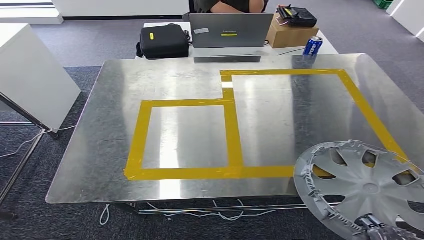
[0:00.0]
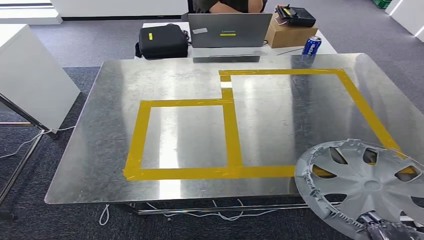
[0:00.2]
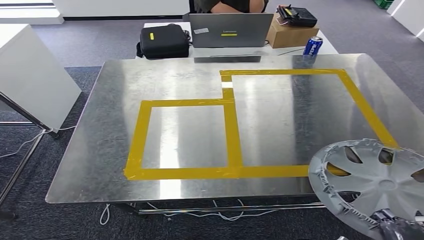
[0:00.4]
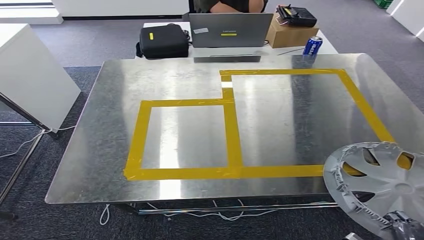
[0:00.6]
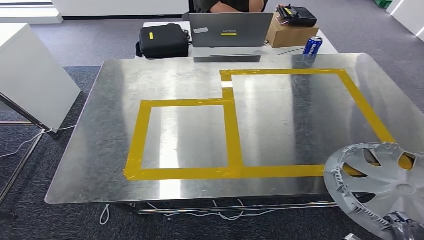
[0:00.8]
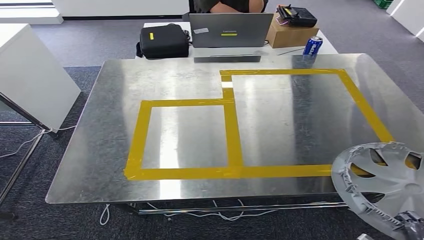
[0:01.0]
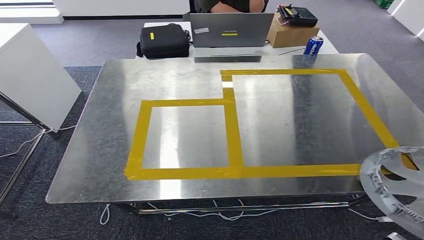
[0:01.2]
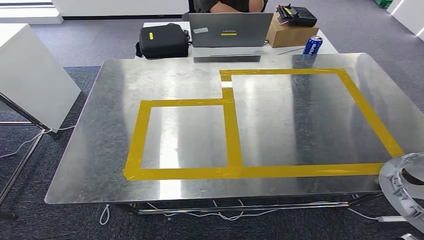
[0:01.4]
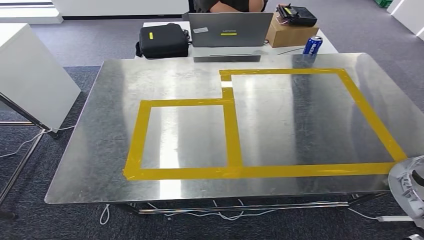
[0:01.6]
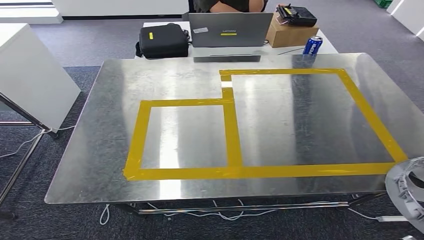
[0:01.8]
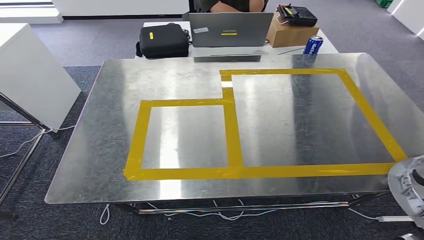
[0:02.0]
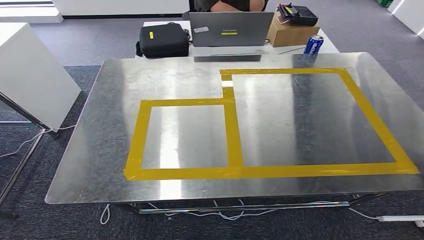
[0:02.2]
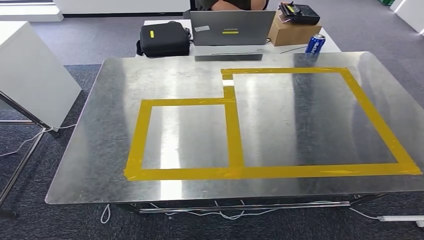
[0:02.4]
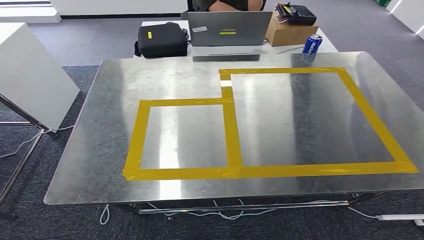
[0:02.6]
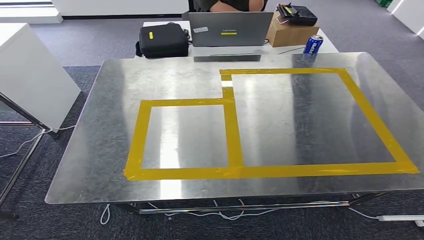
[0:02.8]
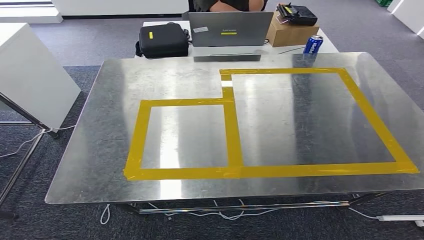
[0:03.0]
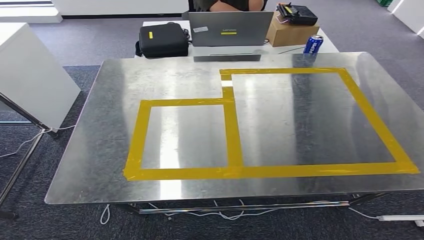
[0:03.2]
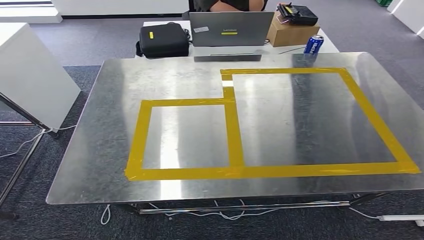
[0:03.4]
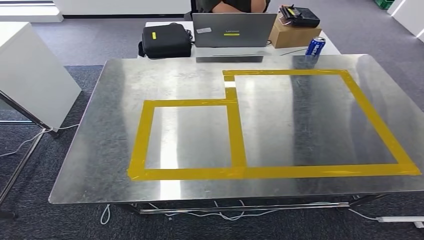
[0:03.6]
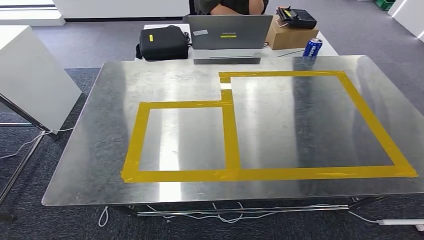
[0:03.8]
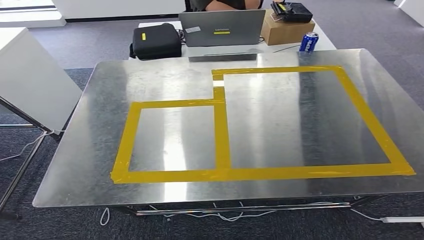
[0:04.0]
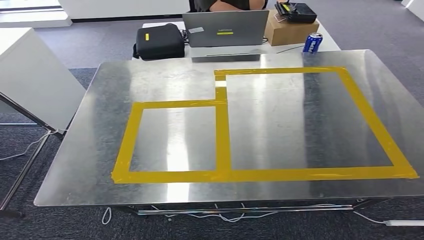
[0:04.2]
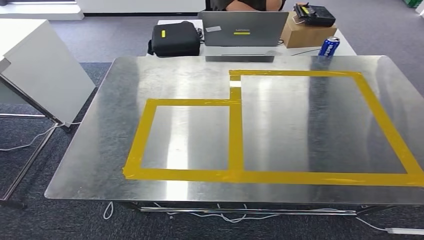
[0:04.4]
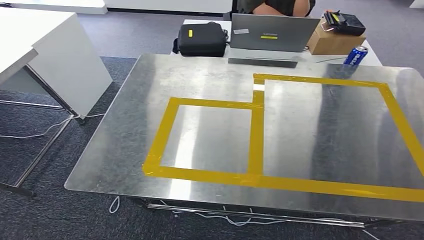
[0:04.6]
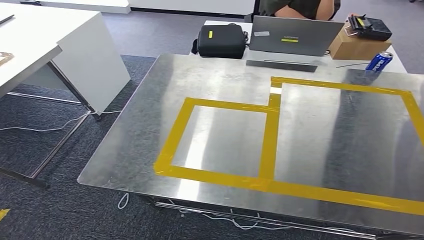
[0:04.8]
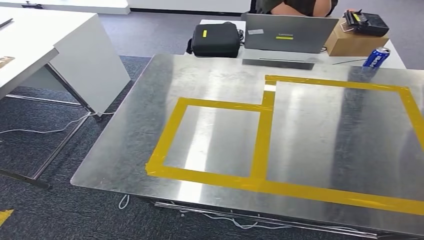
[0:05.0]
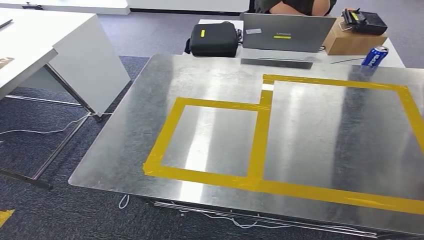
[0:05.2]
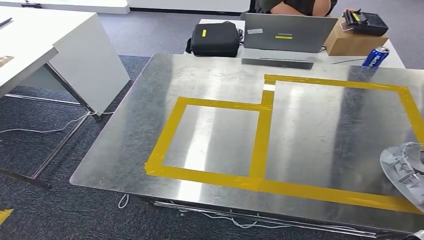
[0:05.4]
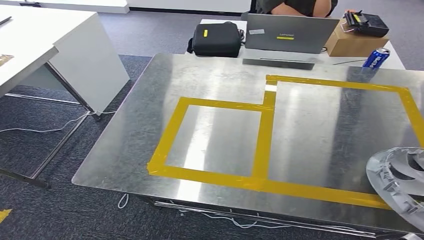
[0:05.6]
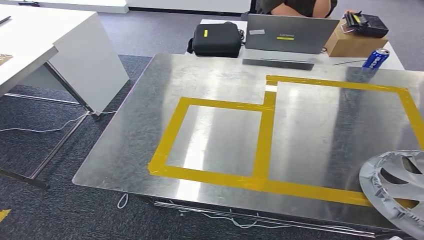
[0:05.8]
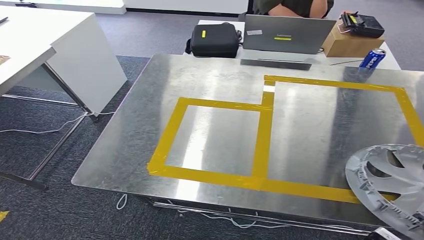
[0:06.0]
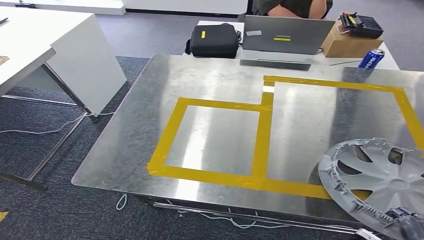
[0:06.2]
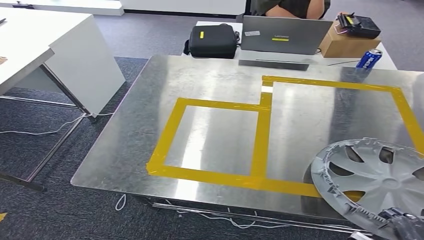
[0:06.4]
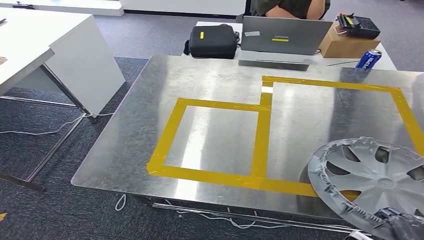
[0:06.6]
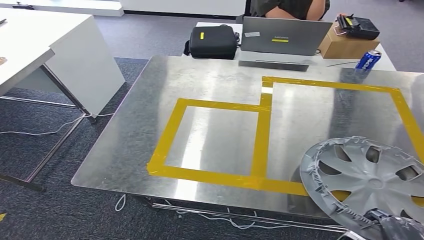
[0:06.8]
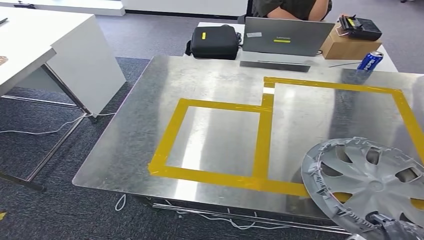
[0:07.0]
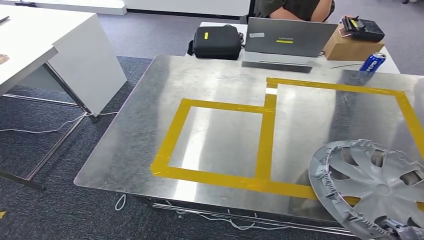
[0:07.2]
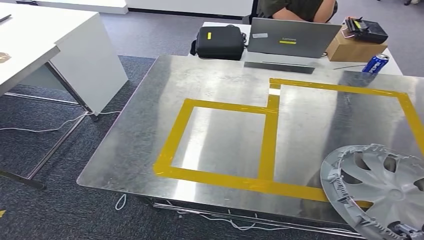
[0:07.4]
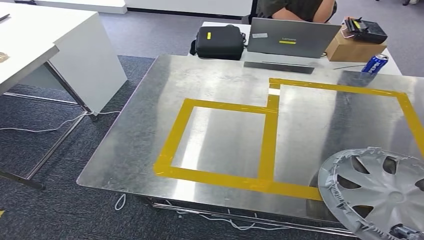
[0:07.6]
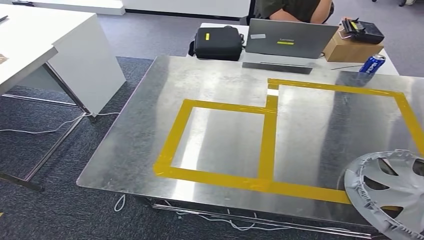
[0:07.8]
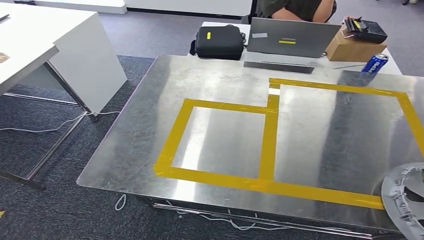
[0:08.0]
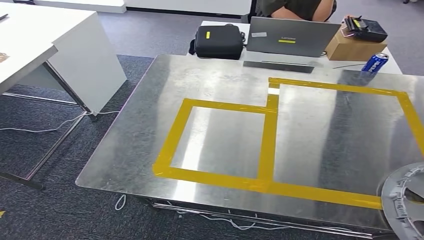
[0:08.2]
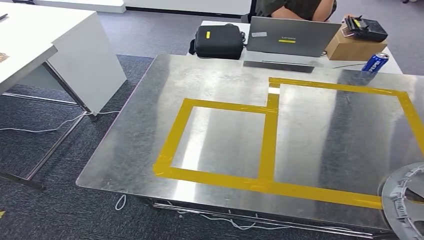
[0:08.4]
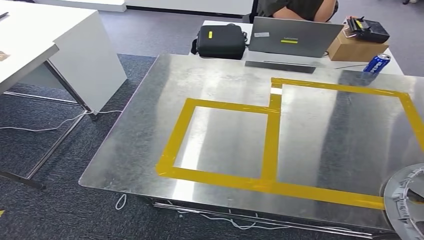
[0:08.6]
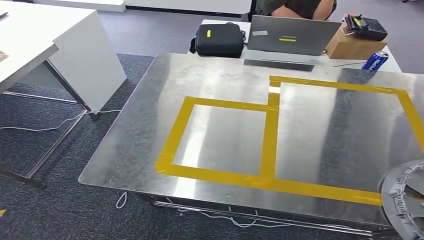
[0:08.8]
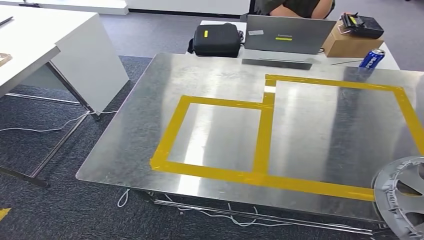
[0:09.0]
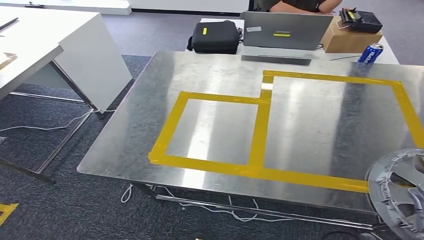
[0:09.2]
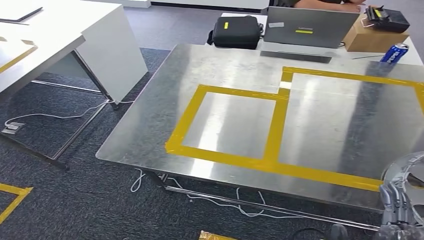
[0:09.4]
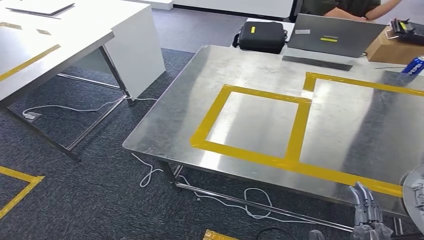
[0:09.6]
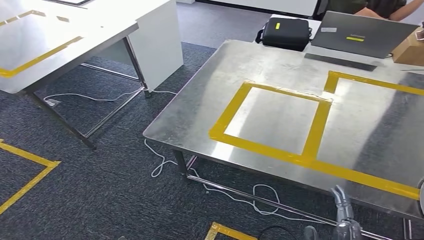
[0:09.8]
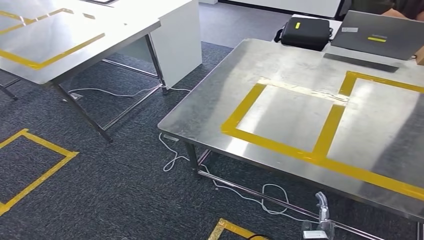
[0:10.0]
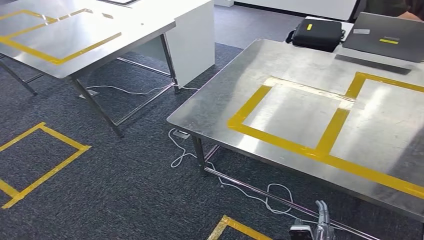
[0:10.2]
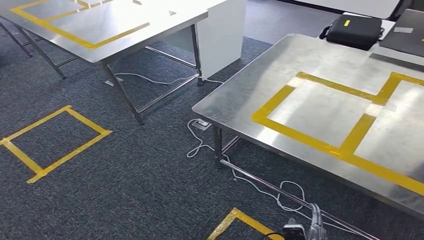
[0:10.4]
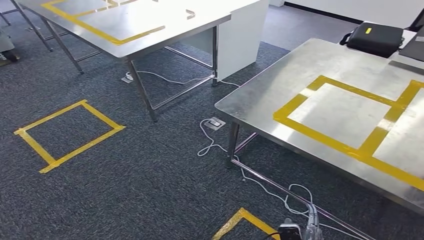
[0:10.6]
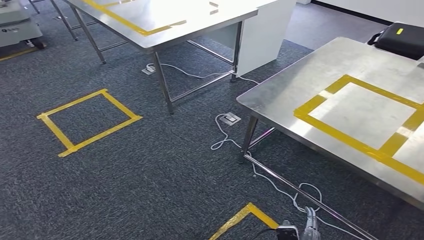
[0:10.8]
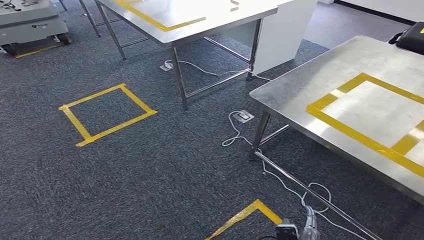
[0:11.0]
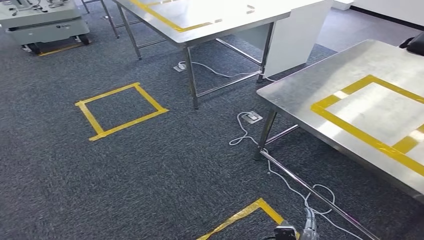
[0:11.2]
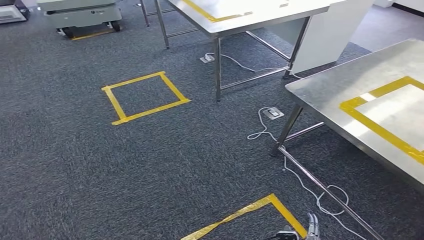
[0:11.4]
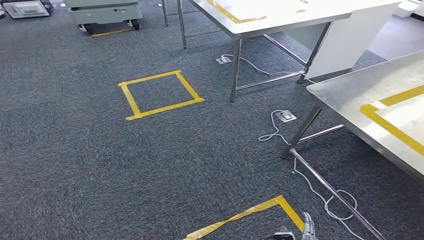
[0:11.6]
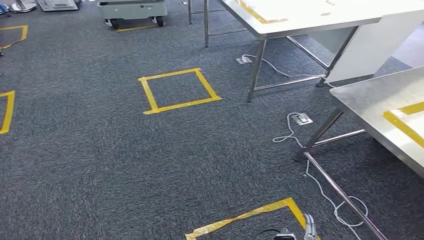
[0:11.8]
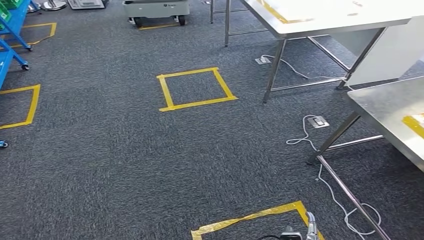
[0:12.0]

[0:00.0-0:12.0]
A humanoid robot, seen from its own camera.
Step, 0:00.0 to 0:10.8: Insert the small parts into the corresponding holes on the workbench.
0:00.0 to 0:01.6: The right hand goes about 10 cm to the right.
0:01.6 to 0:03.0: The right hand heads upward and backward, covering some 25 cm.
0:06.0 to 0:07.6: The hands move only a little.

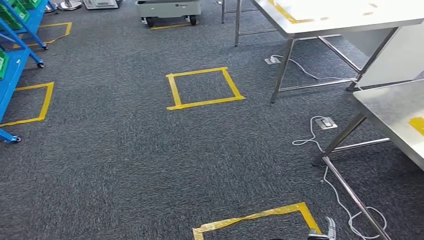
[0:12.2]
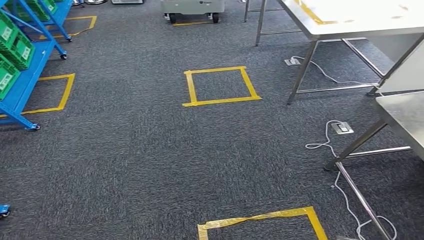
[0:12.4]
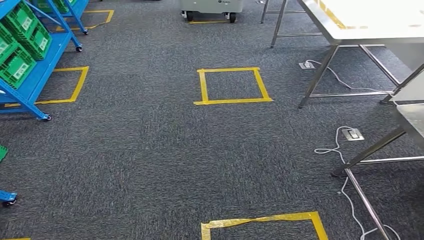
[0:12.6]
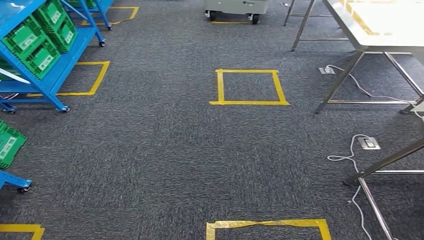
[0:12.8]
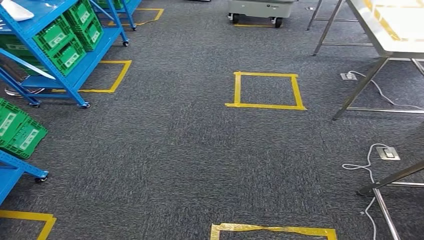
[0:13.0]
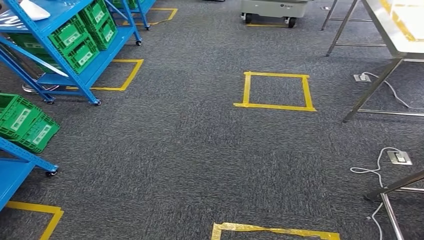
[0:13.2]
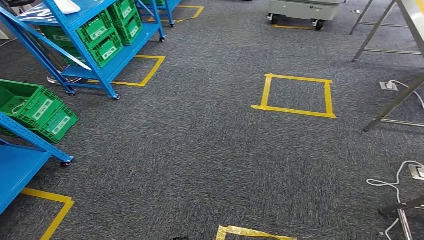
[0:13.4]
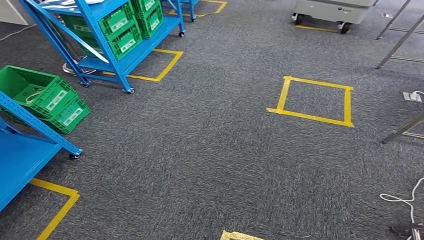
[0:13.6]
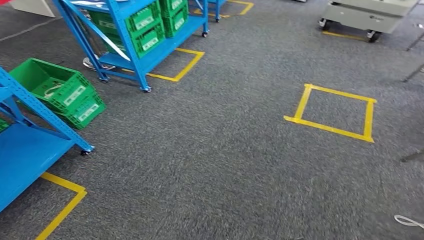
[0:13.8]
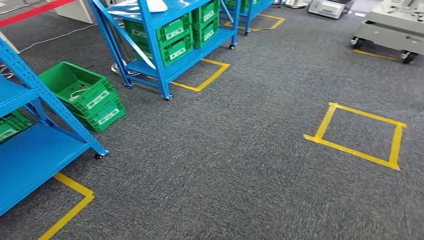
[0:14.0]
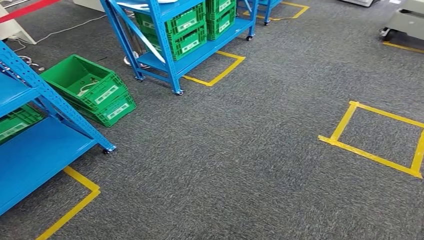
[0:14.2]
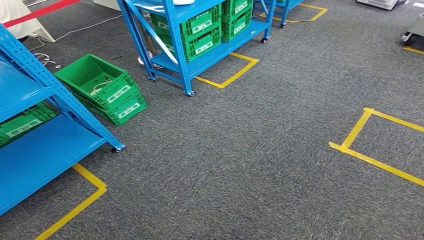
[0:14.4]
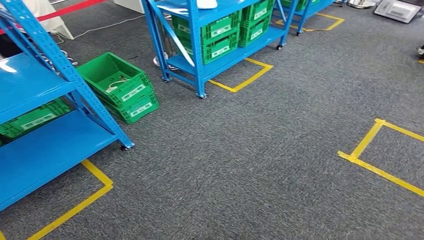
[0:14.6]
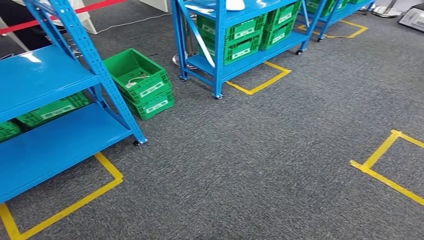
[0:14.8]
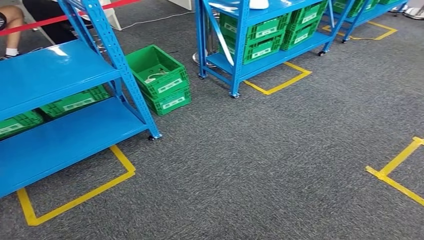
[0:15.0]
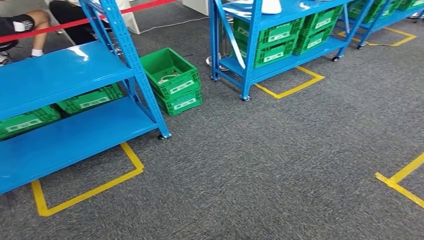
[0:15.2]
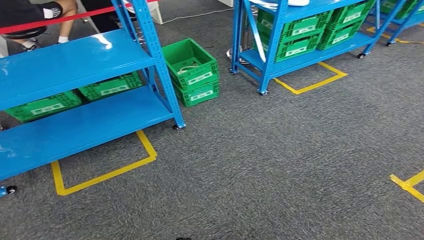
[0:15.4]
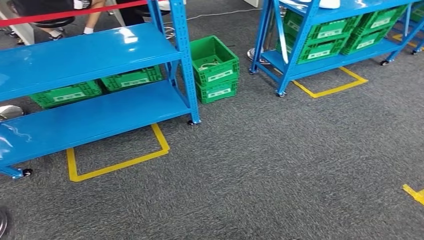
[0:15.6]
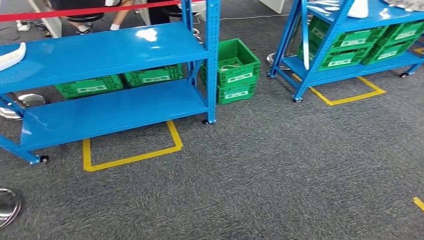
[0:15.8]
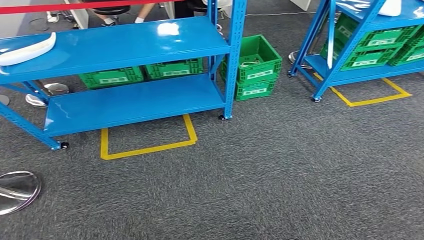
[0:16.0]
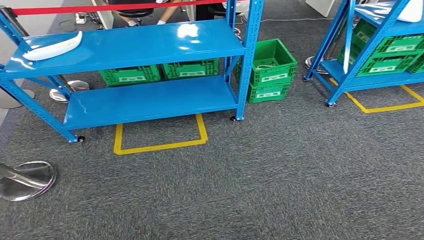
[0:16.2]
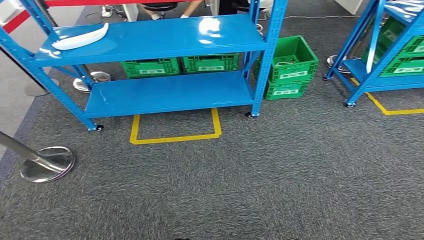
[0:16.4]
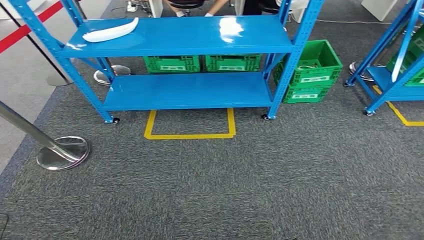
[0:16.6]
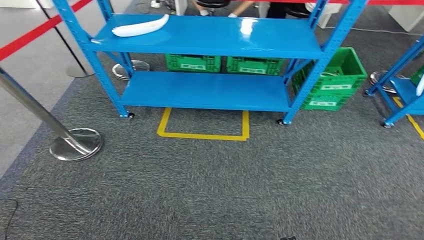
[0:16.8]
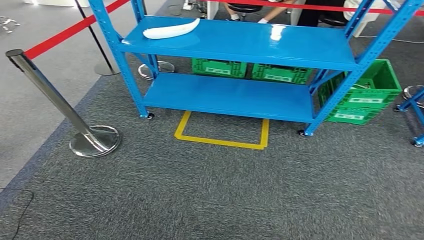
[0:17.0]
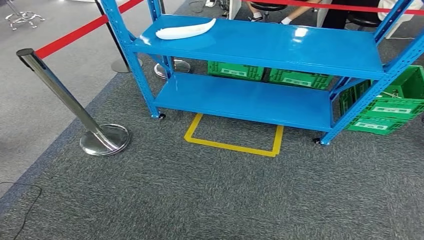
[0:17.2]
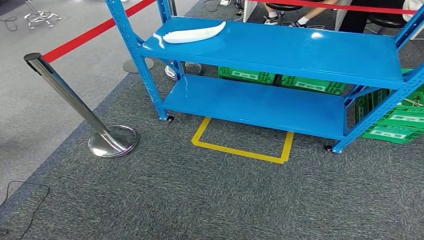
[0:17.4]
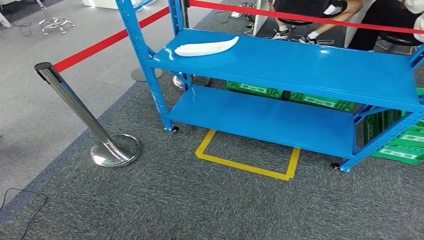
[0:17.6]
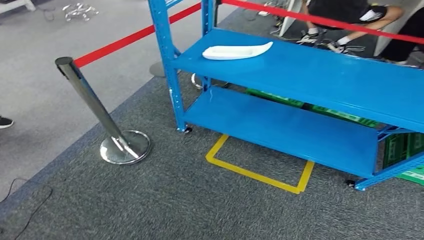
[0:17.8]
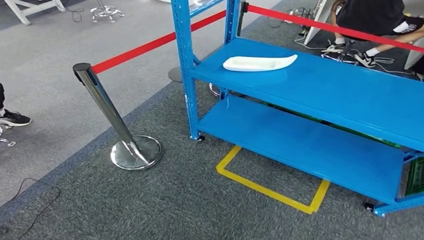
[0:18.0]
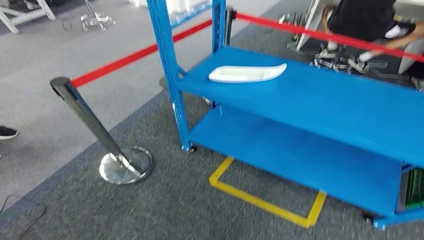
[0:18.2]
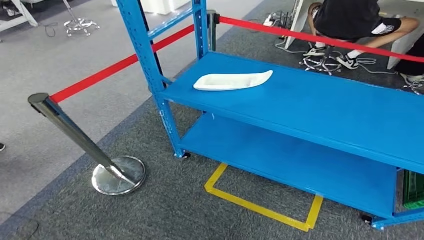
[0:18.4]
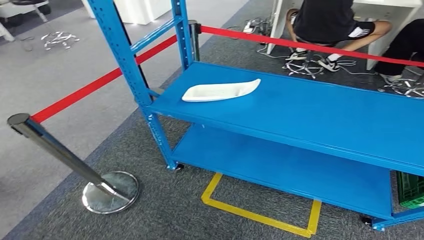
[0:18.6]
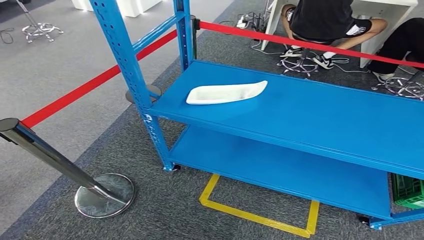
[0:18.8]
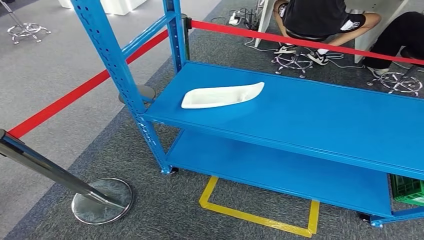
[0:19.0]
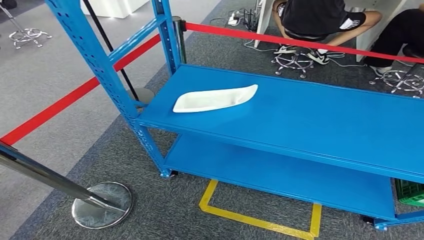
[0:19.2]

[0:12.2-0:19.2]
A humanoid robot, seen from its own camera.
Step, 0:12.2 to 0:19.2: Move to the initial position of the workbench.
